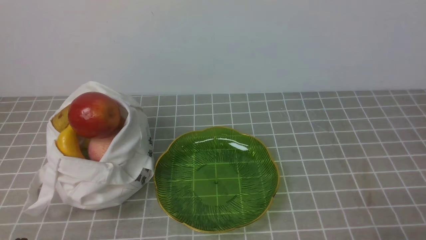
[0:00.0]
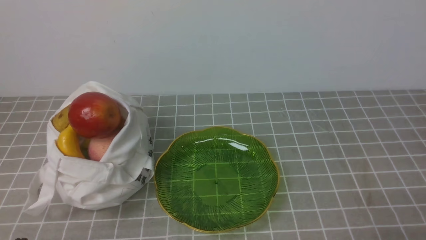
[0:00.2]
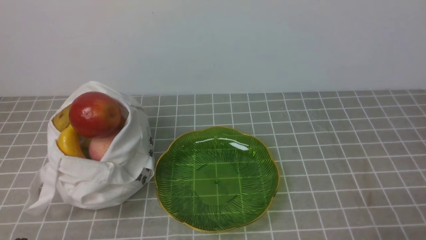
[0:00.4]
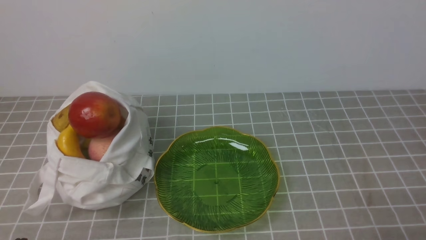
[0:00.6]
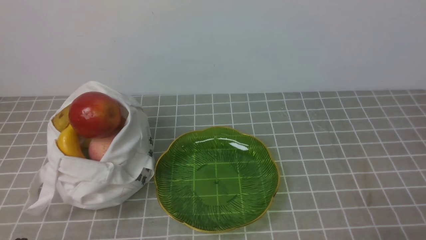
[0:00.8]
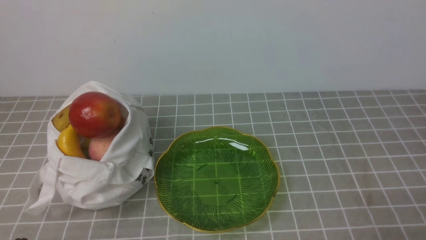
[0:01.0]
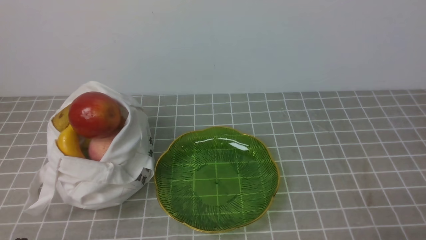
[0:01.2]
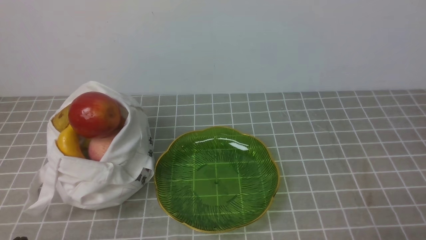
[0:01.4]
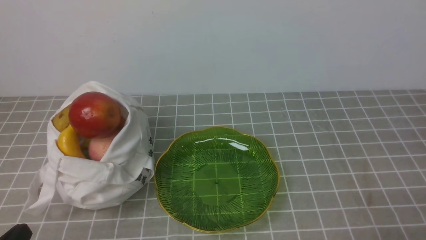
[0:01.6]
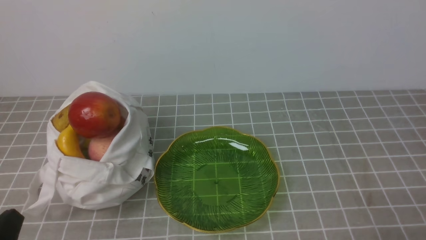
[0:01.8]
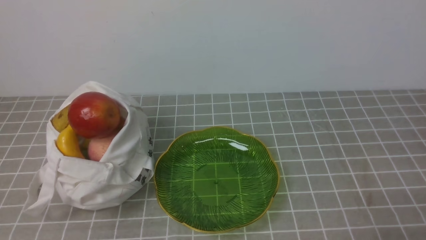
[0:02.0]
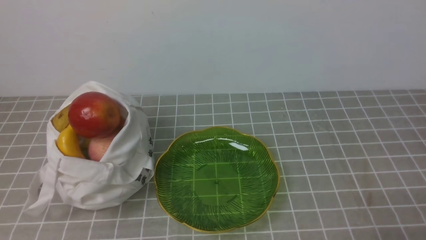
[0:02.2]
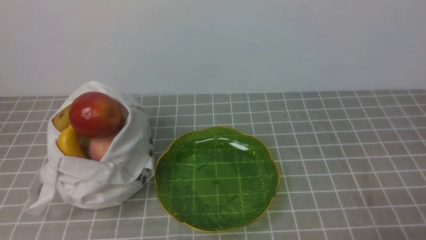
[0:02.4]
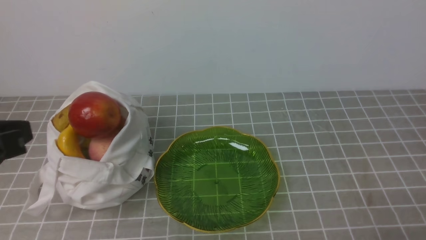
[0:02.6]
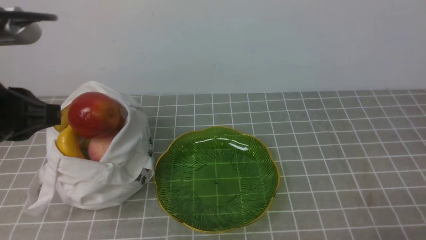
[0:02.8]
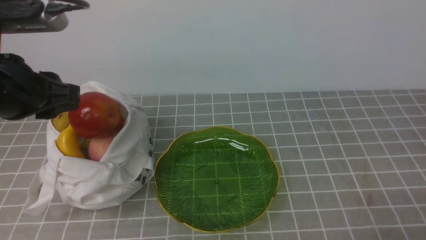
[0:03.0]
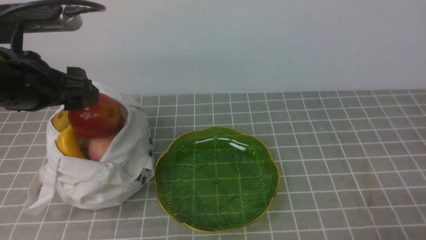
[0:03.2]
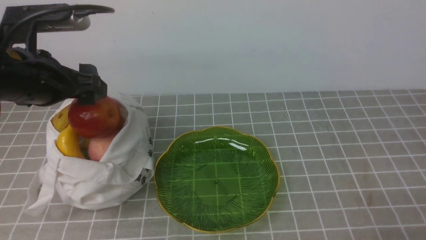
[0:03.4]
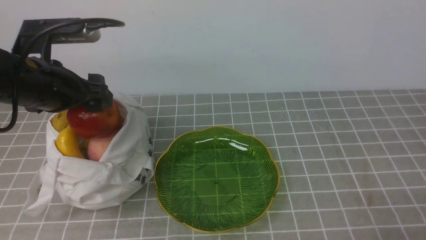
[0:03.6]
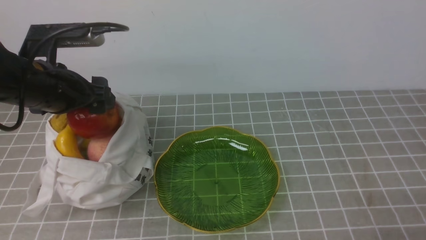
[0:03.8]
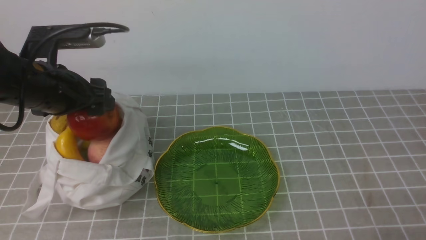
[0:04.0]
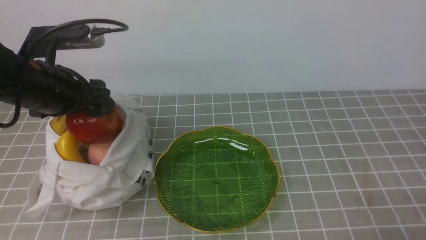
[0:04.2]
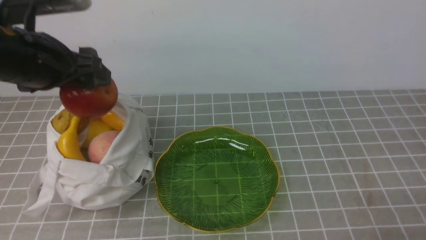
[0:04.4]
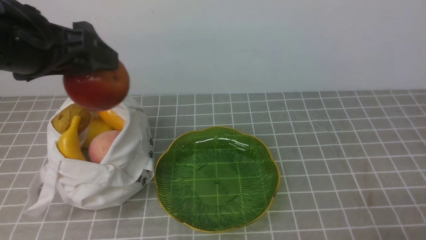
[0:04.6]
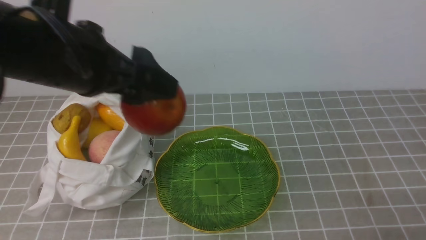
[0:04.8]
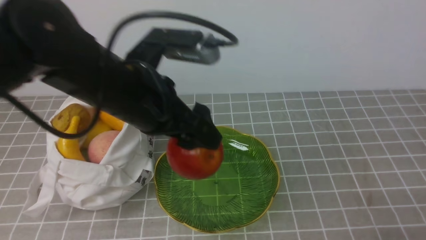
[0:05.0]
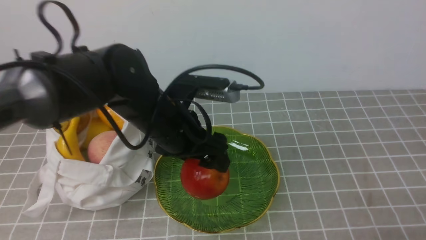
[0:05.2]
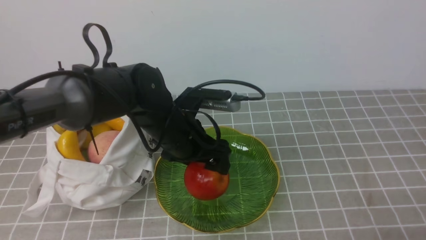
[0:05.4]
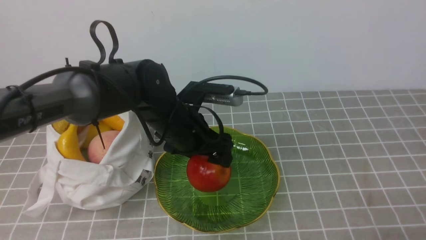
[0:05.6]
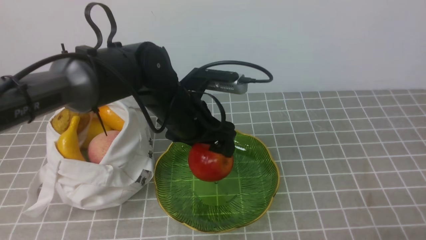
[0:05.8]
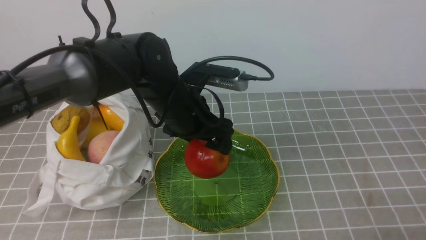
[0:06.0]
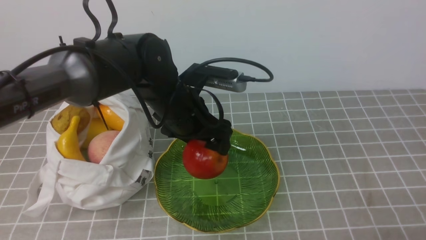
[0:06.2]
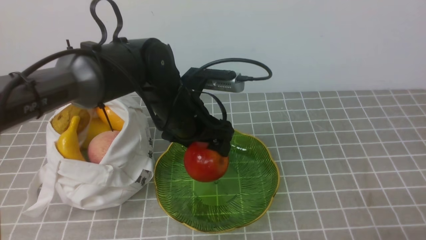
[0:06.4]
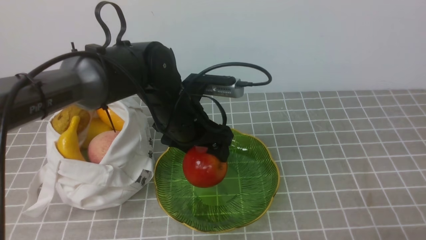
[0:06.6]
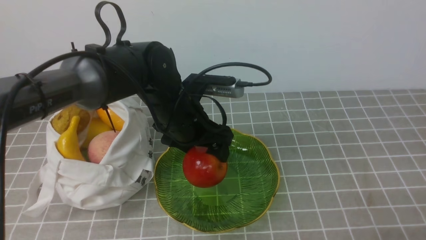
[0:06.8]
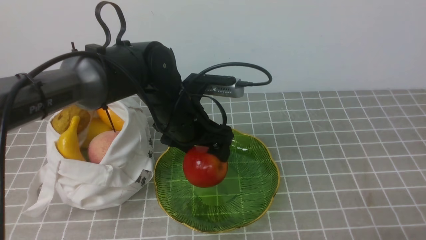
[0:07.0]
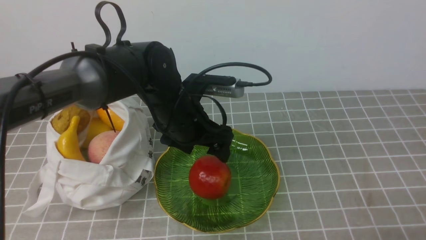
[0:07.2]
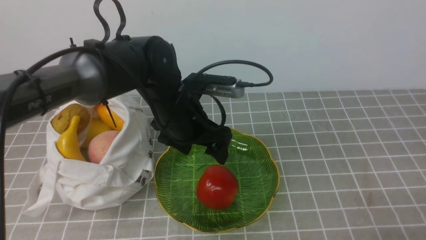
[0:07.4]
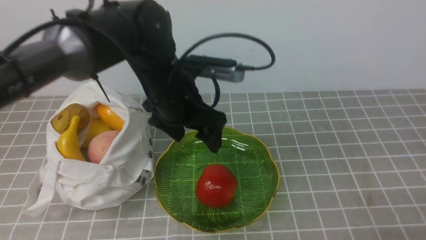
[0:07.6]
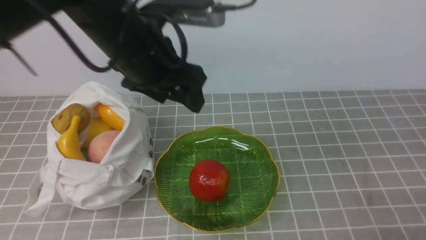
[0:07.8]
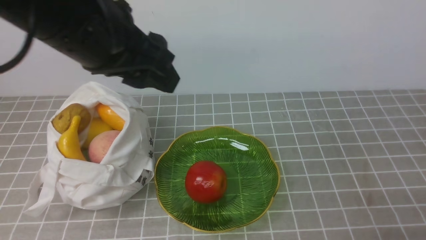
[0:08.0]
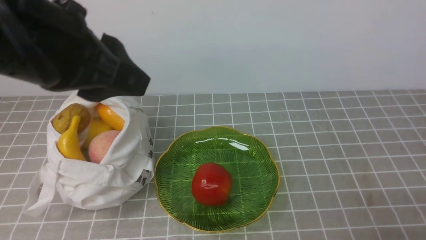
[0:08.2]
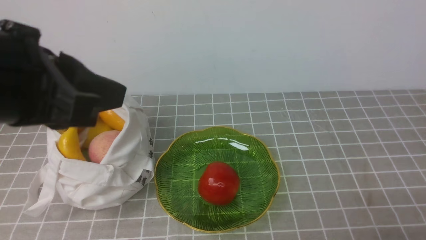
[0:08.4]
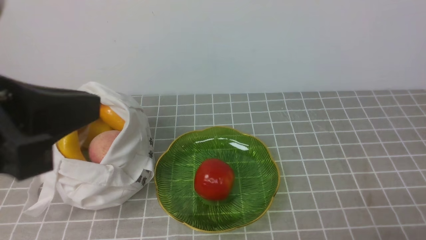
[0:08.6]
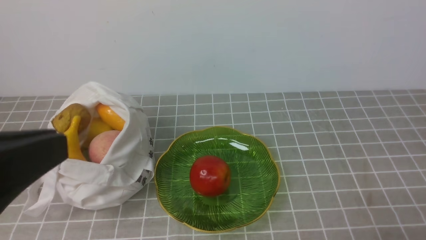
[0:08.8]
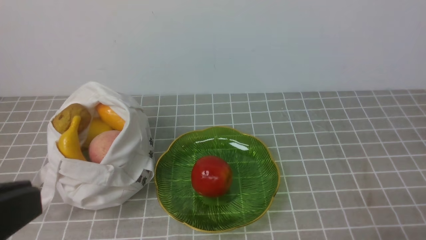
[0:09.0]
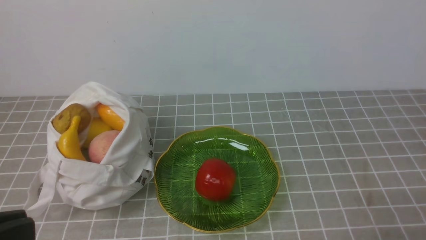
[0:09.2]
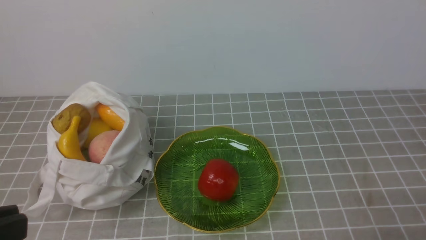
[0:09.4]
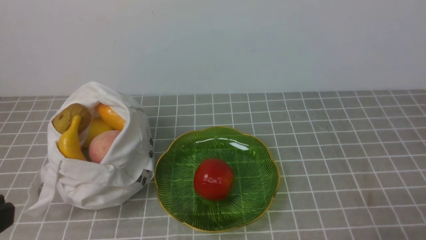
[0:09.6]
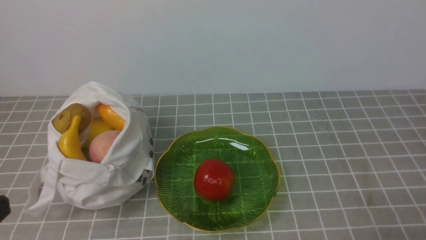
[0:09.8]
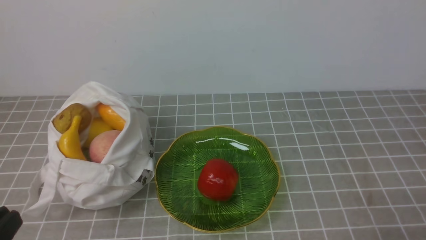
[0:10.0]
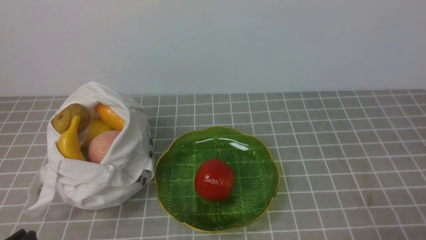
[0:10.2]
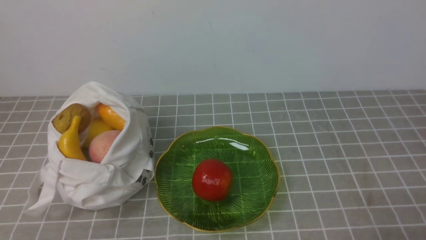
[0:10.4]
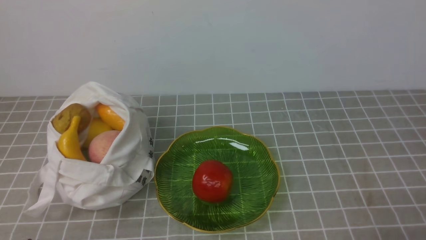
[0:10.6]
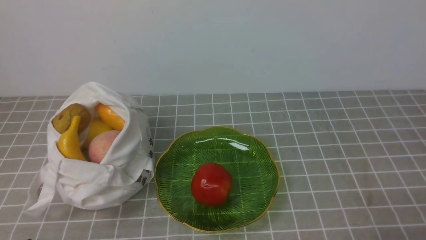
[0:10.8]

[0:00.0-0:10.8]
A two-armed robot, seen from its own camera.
Step, 0:00.0 to 0:04.2: use the left arm to grab a pomegranate from the bag.
Step, 0:04.4 to 0:07.2: use the left arm to put the pomegranate into the empty plate on the right.
0:01.6 to 0:03.0: The left gripper shifts some 25 cm upward and forward.
0:03.0 to 0:04.6: The left gripper moves forward, about 5 cm, and opens.
0:04.6 to 0:06.2: The left gripper moves to the right, downward and forward, about 20 cm.
0:06.2 to 0:07.8: The left gripper goes approximately 10 cm upward.
0:07.8 to 0:09.2: The left gripper heads backward and to the left, covering approximately 30 cm, and closes up.
0:09.2 to 0:10.8: The left gripper goes roughly 20 cm downward.

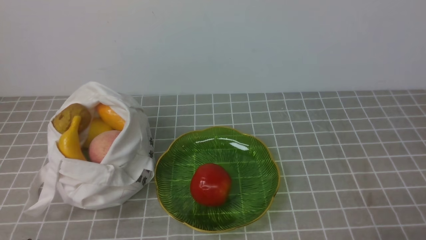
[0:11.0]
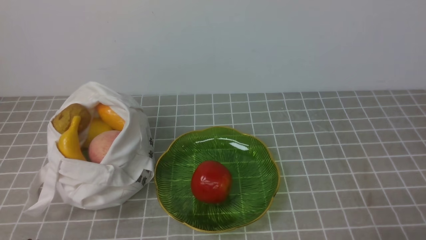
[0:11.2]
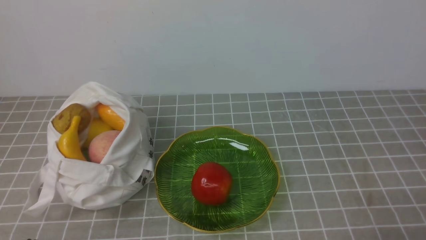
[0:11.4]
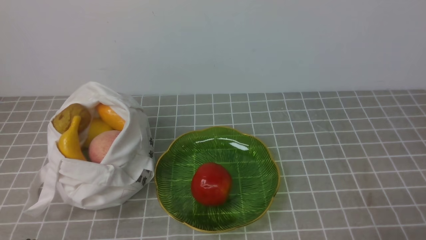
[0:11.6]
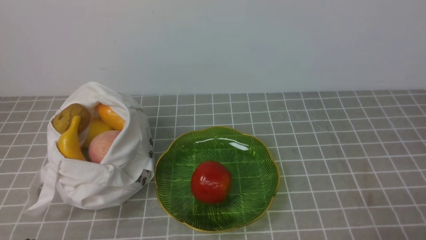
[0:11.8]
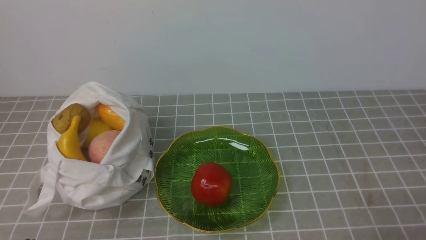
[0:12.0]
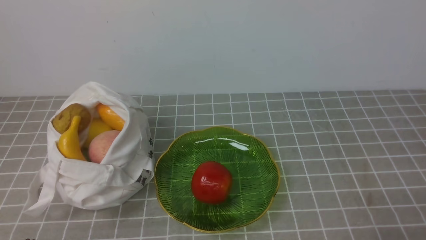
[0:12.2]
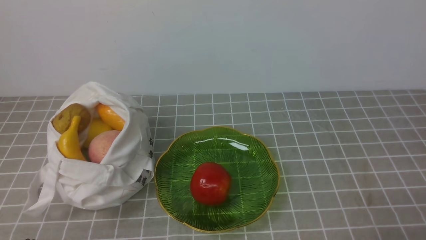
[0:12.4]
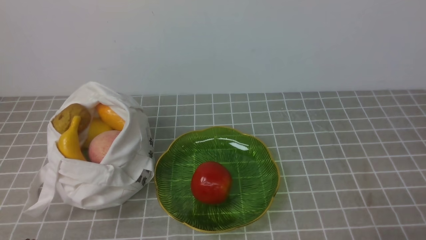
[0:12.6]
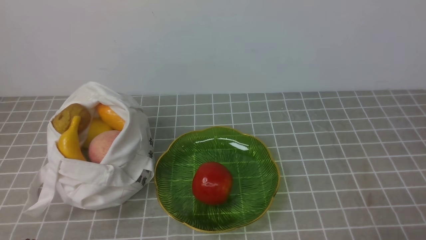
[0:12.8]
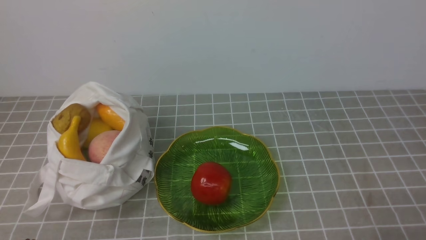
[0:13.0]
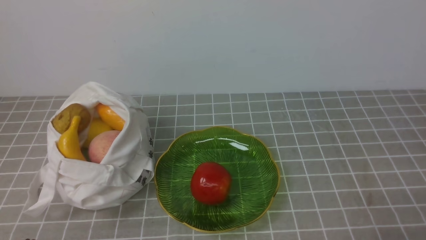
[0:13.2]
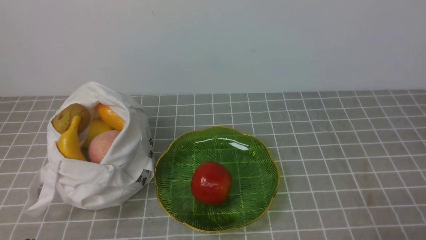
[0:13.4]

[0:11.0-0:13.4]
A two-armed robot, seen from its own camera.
0:11.0 to 0:13.4: Both grippers stay about where they are.
